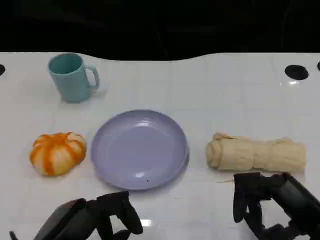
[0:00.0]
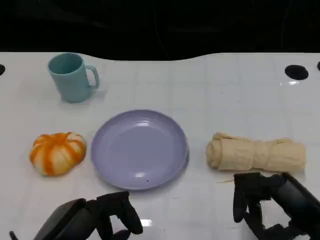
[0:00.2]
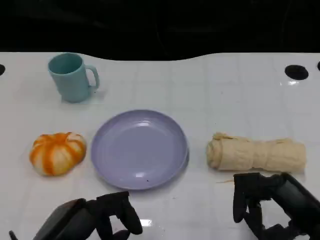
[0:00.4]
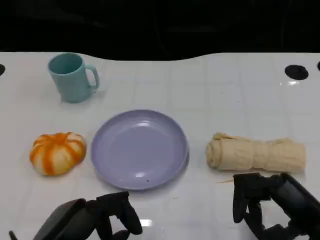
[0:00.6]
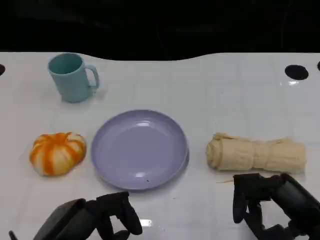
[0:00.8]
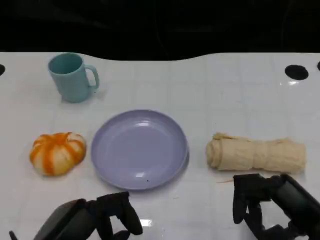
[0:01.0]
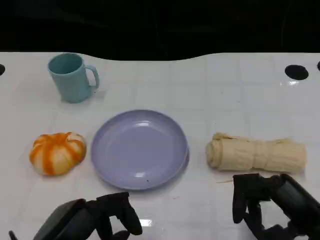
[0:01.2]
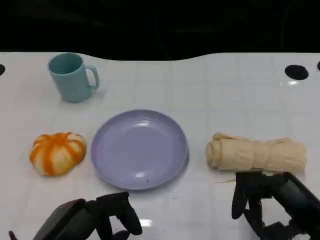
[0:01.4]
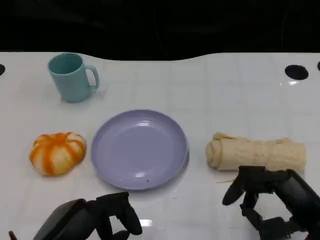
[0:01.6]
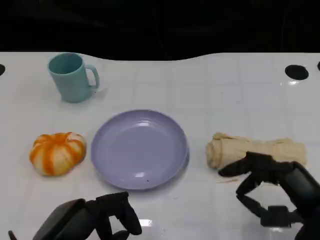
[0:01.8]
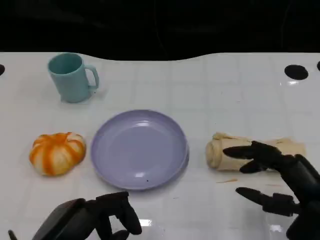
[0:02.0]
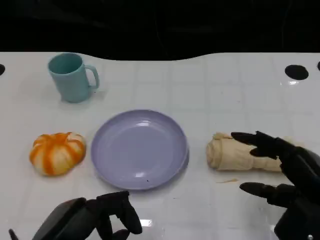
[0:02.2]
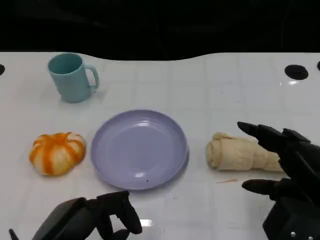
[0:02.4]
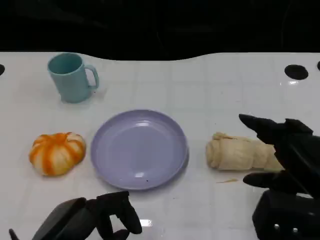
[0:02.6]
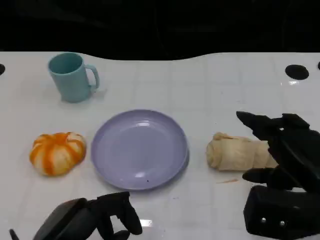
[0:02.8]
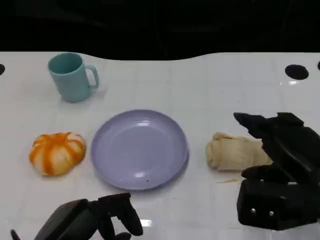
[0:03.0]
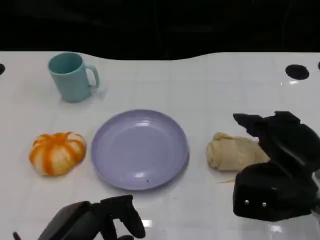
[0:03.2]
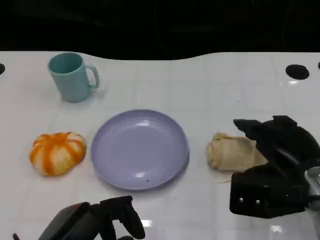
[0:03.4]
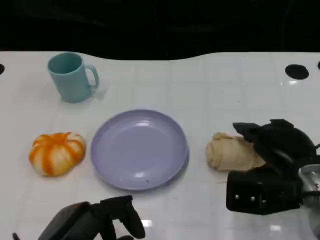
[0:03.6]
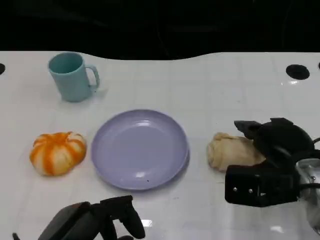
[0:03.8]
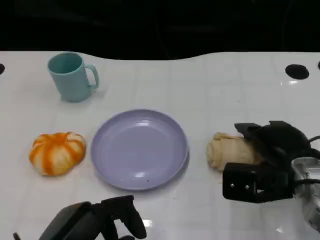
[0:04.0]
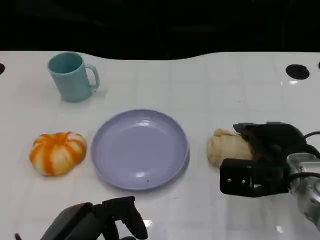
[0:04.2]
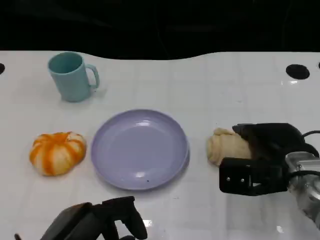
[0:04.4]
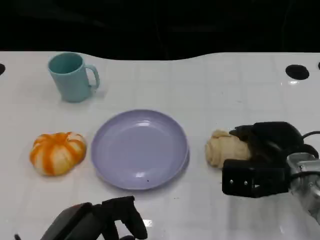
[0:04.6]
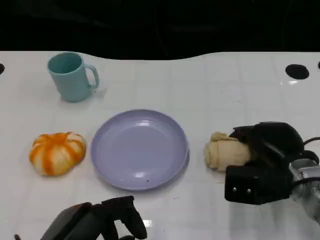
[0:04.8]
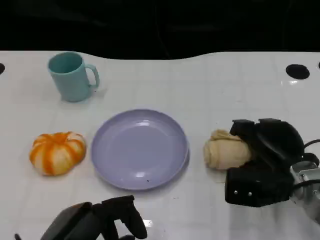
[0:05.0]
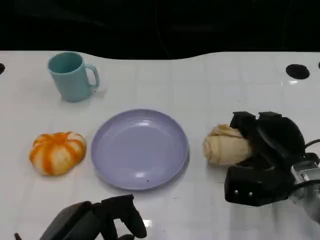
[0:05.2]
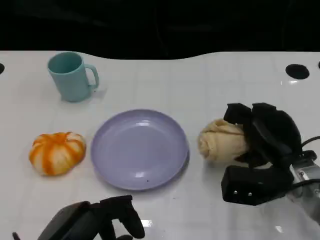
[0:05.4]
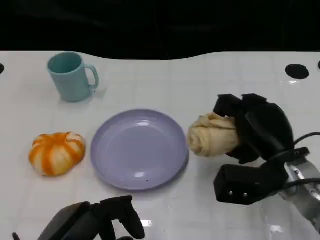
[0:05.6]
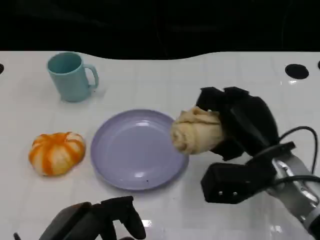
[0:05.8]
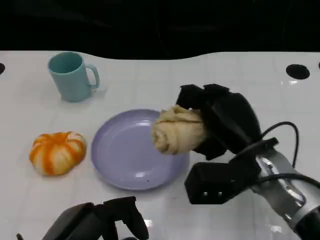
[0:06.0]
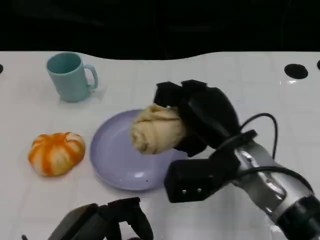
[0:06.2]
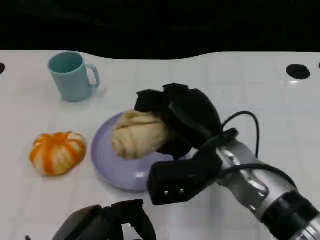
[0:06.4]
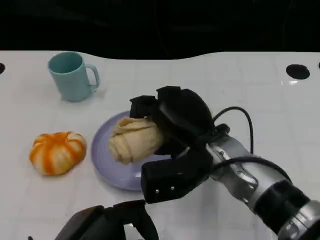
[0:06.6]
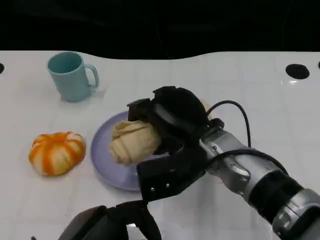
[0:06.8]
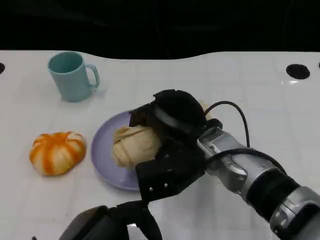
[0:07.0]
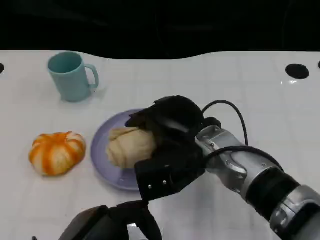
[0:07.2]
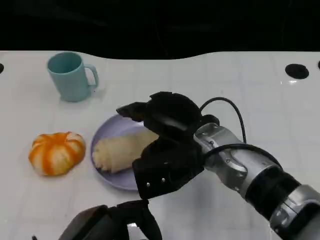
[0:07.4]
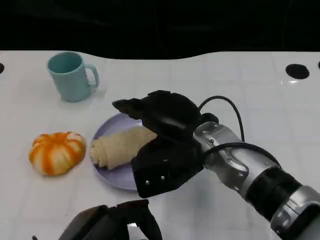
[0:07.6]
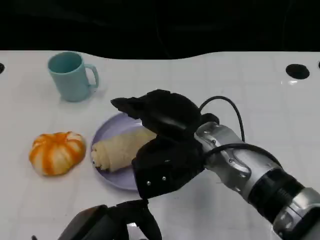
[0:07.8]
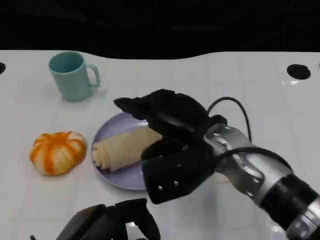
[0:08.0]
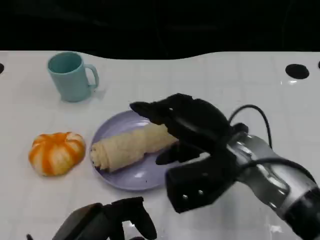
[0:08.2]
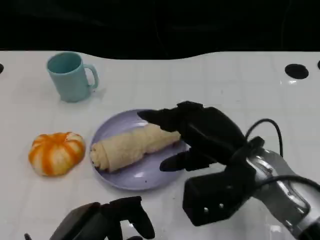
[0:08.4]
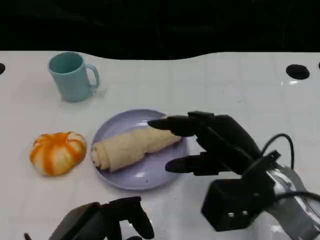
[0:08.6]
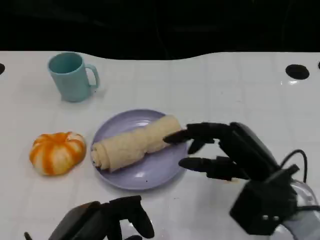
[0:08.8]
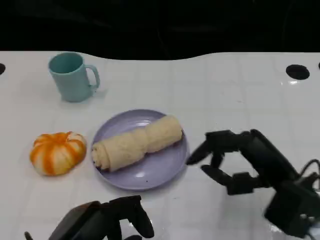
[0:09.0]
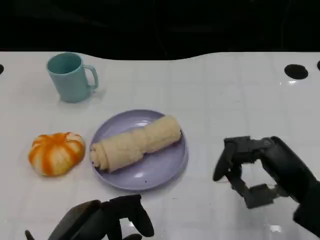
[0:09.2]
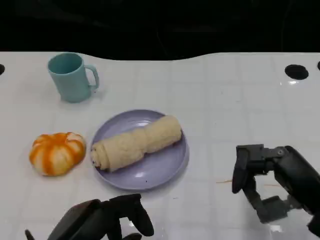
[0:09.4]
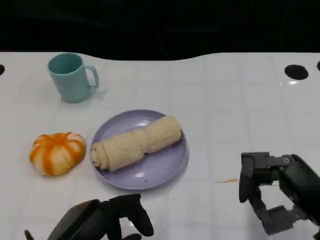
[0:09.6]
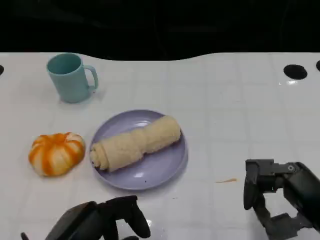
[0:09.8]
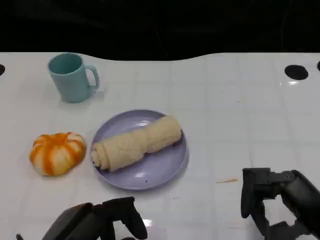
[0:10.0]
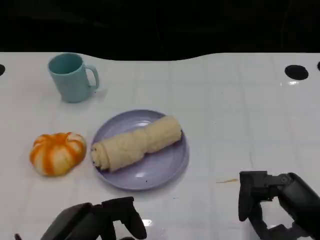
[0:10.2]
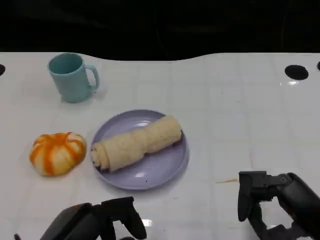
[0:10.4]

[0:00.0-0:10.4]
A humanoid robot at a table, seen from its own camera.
Task of the whole recording: Grasp the towel on the left side of the plate with the left hand and place it into the plate.
0:00.0 to 0:01.4: Both hands stay put.
0:01.4 to 0:03.0: The right hand goes roughly 5 cm forward.
0:03.0 to 0:04.4: The right hand moves forward and downward, about 10 cm.
0:04.4 to 0:06.0: The right hand moves to the left, about 5 cm.
0:06.0 to 0:07.4: The right hand moves to the left, roughly 5 cm.
0:07.4 to 0:09.0: The right hand goes approximately 15 cm to the right and backward.
0:09.0 to 0:10.4: The right hand travels backward by approximately 5 cm.

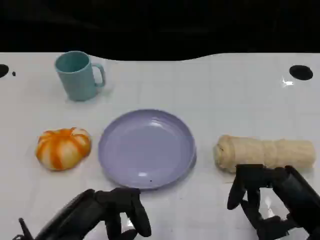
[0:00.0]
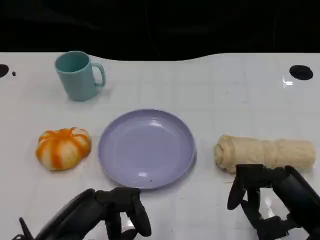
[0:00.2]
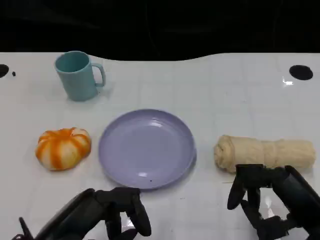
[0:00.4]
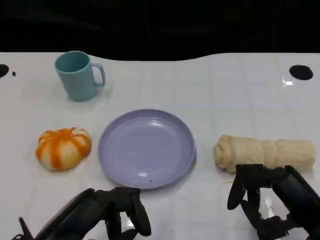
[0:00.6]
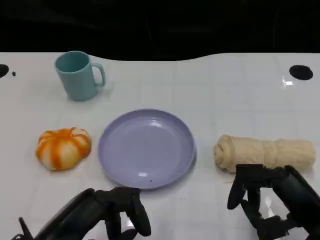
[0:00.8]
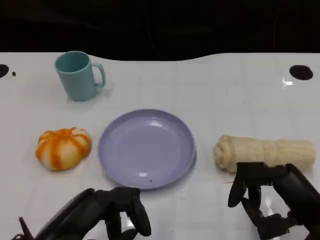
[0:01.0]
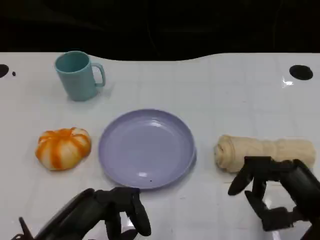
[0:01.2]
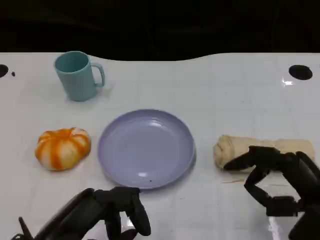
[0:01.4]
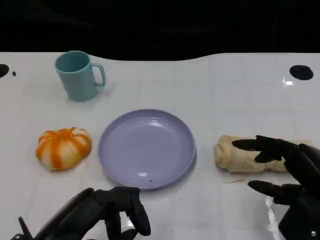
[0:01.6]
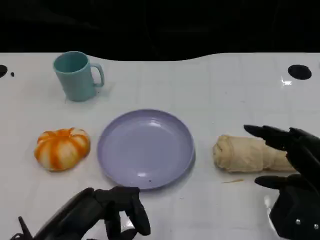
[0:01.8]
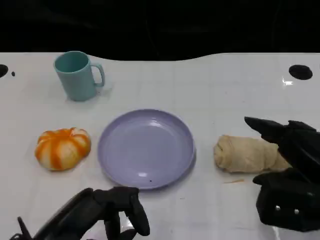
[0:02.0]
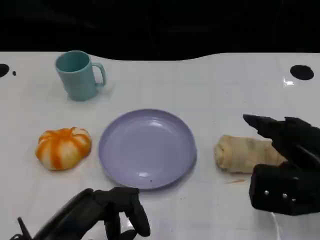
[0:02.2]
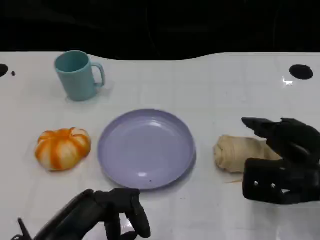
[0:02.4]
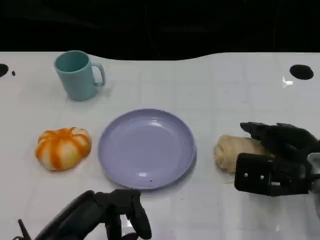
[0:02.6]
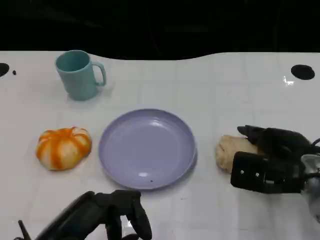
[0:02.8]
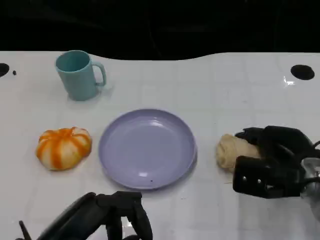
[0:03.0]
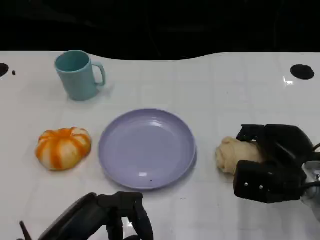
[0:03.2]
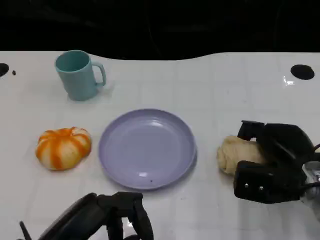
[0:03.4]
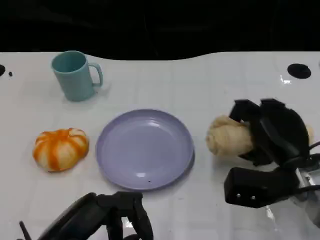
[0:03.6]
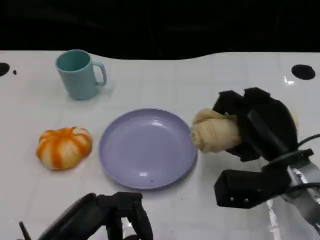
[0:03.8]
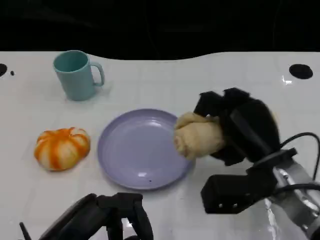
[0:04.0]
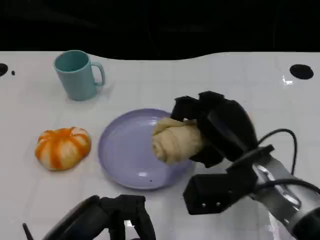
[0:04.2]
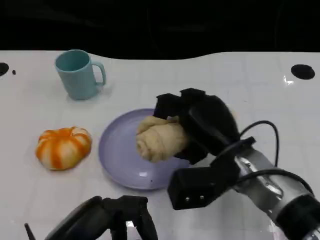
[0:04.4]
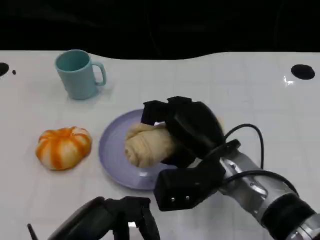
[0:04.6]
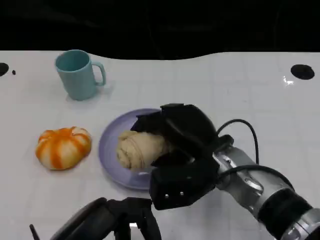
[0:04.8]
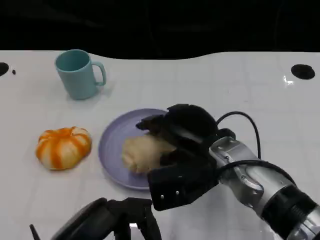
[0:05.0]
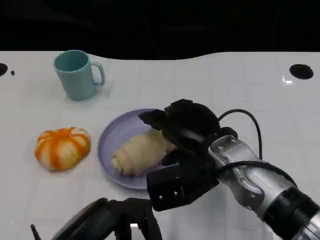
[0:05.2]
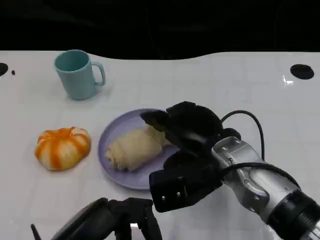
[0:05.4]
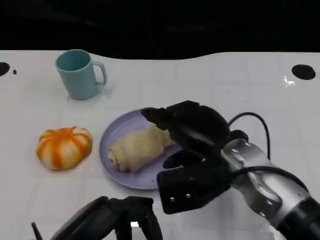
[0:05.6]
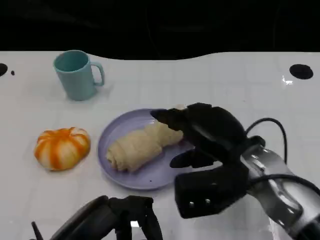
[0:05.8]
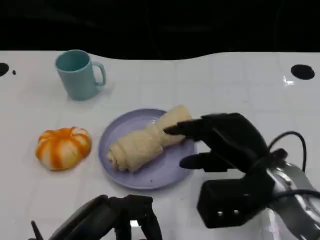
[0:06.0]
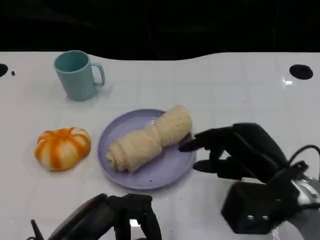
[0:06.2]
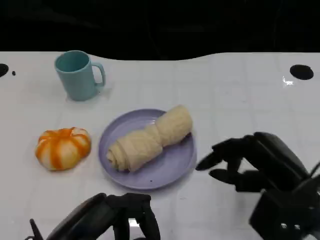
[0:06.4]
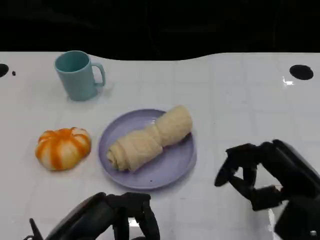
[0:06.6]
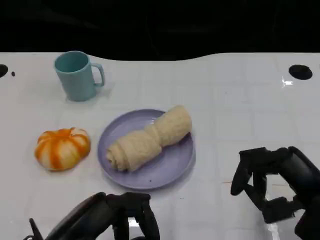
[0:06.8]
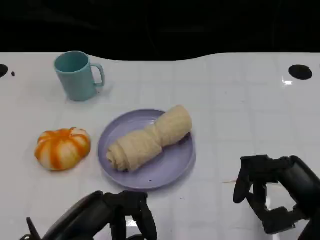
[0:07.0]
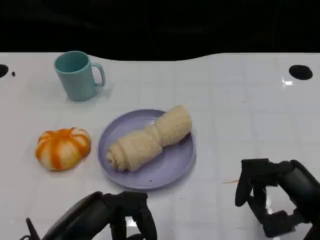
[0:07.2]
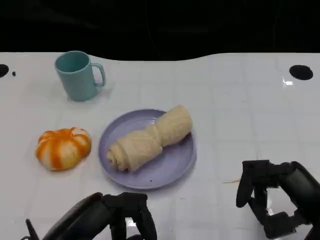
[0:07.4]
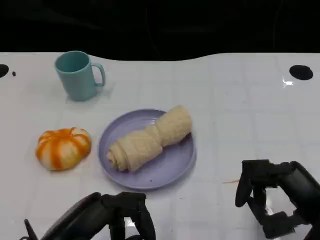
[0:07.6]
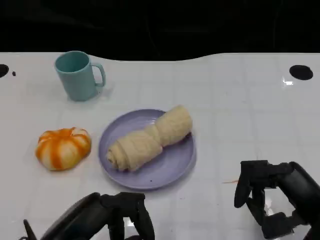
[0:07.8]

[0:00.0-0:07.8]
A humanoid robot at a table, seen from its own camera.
Task of the whole recording: Grasp the towel on the left side of the plate with the left hand and place it into the plate.
0:01.6 to 0:03.2: The right hand moves forward and downward, about 10 cm.
0:03.2 to 0:04.6: The right hand heads to the left, covering approximately 15 cm.
0:04.6 to 0:06.2: The right hand travels to the right by about 10 cm.
0:06.2 to 0:07.8: The right hand moves backward and to the right, about 10 cm.

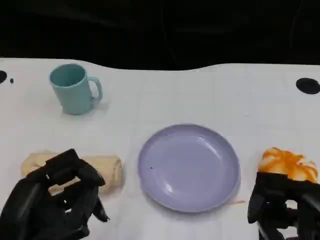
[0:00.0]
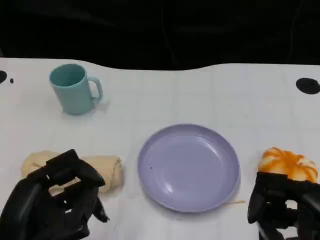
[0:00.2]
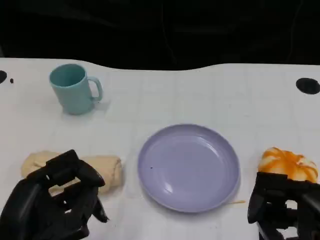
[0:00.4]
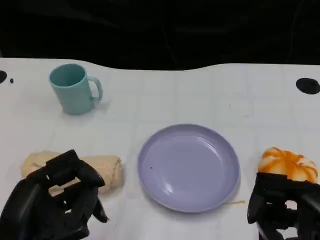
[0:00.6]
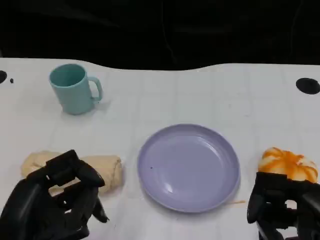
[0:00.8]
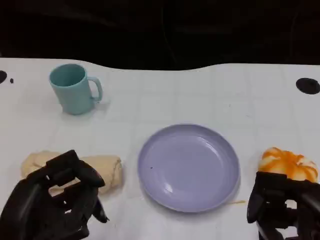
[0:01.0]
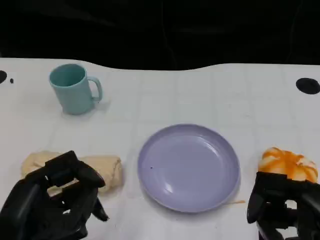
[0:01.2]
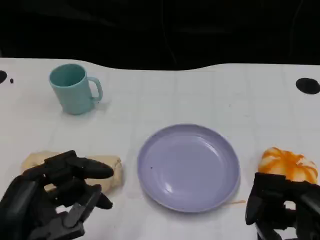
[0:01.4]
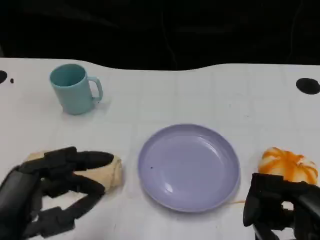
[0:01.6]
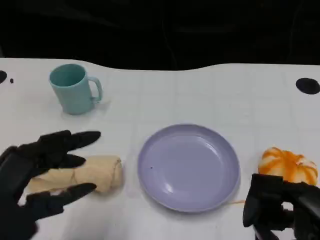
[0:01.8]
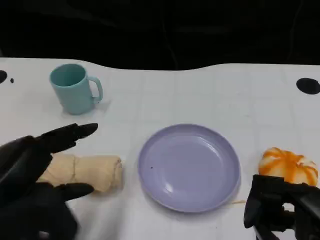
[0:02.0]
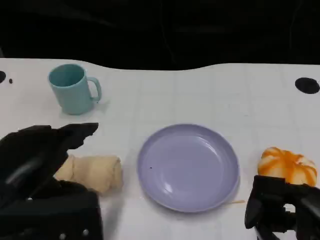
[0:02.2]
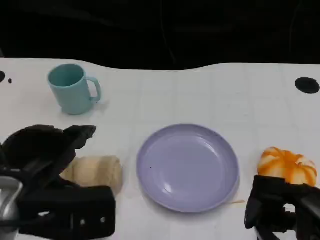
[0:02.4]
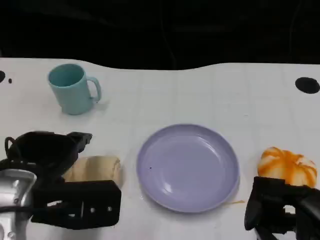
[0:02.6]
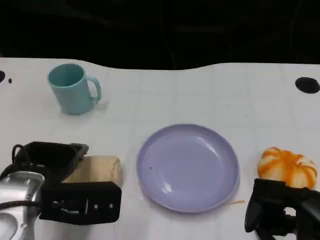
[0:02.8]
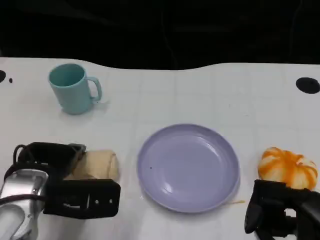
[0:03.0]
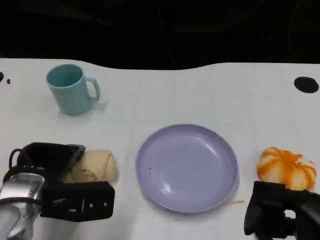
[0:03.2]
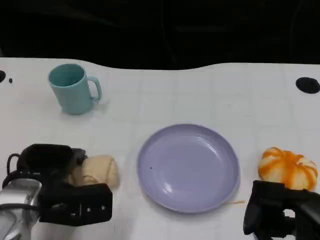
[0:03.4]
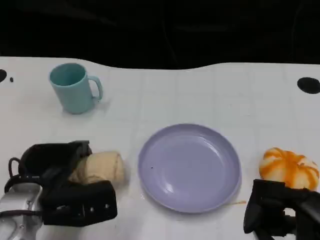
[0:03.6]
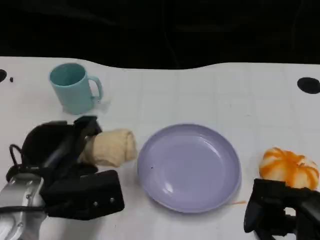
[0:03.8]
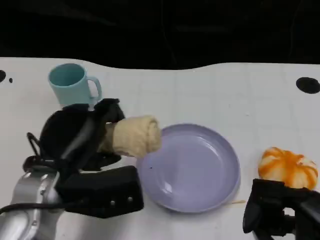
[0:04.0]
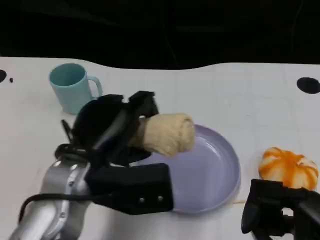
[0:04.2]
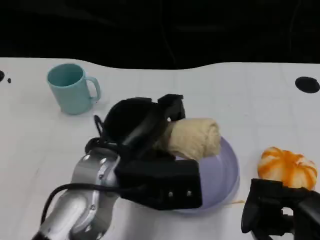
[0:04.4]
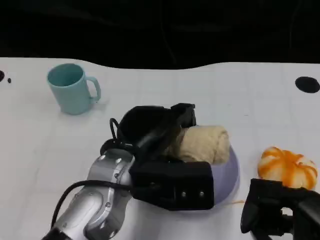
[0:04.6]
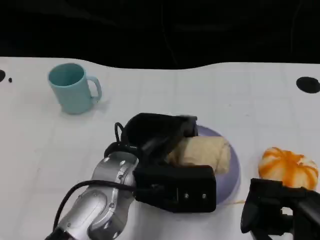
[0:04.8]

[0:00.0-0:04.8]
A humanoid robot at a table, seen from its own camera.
Task of the whole recording: Grasp the towel on the left side of the plate with the left hand and place it into the plate.
0:01.6 to 0:03.2: The left hand shifts roughly 15 cm forward and downward.
0:03.2 to 0:04.8: The left hand goes some 15 cm to the right and upward.
